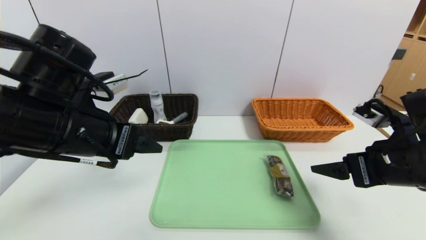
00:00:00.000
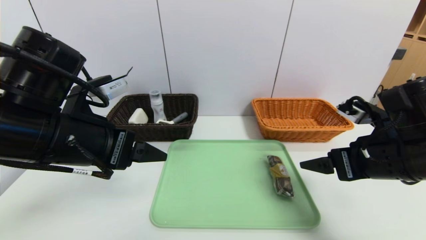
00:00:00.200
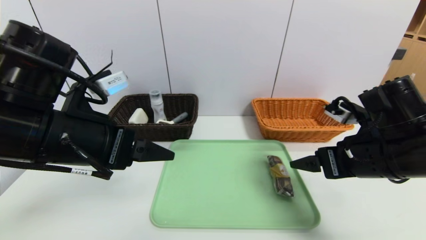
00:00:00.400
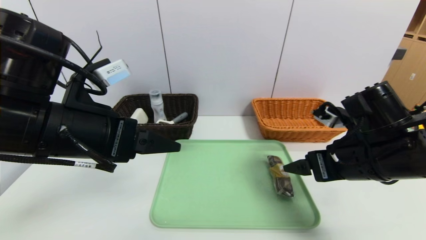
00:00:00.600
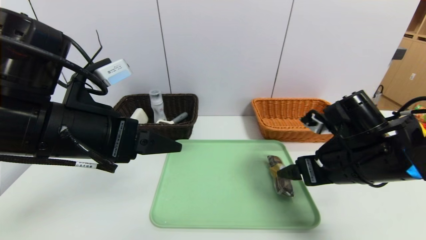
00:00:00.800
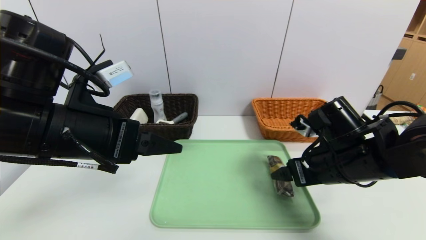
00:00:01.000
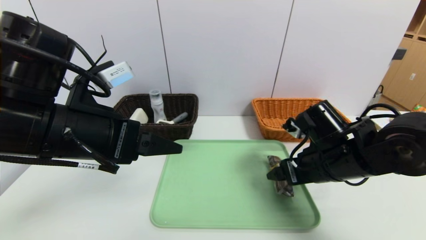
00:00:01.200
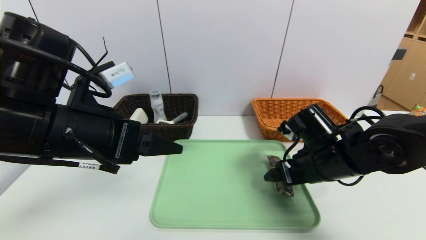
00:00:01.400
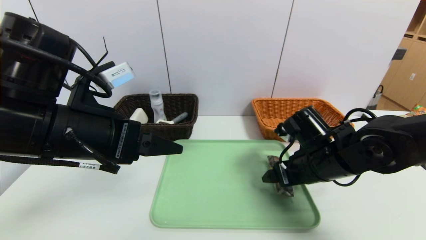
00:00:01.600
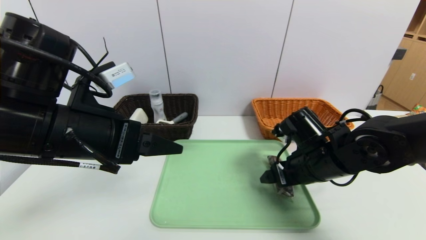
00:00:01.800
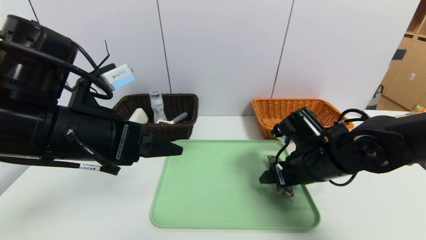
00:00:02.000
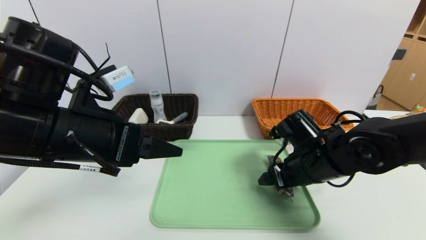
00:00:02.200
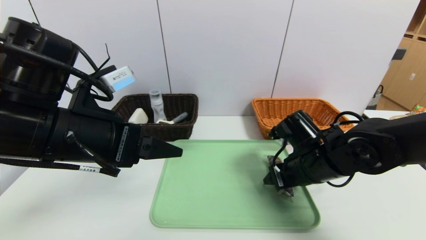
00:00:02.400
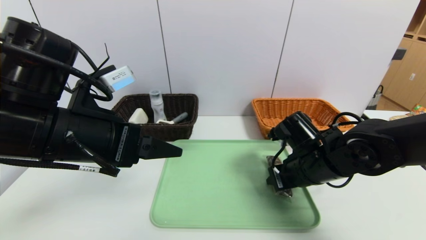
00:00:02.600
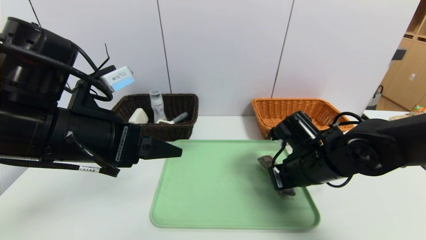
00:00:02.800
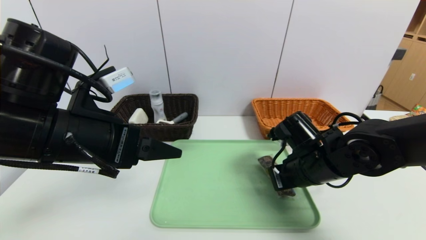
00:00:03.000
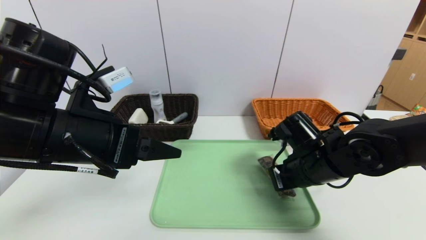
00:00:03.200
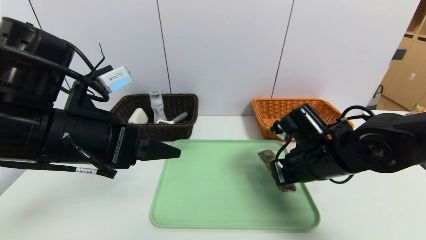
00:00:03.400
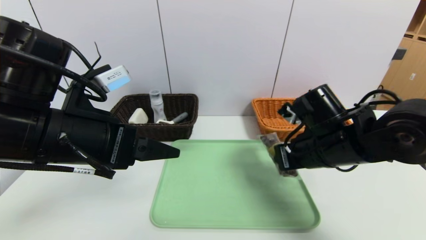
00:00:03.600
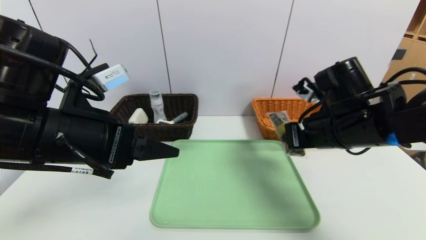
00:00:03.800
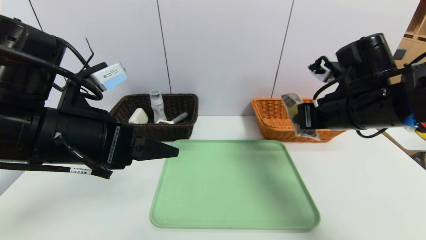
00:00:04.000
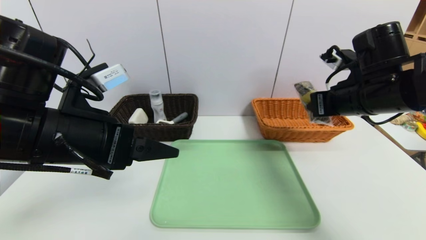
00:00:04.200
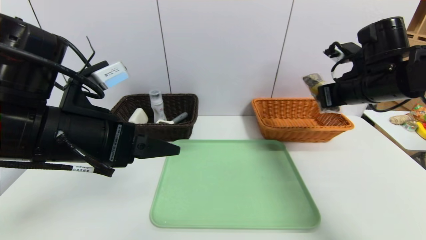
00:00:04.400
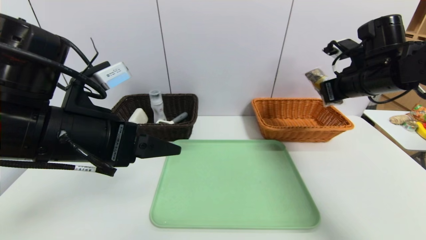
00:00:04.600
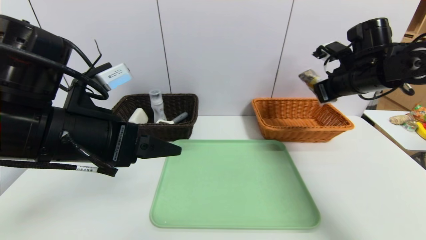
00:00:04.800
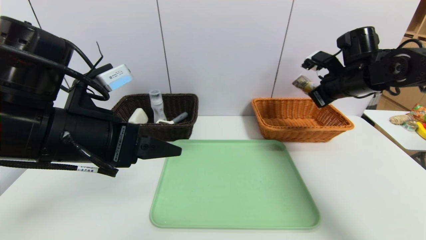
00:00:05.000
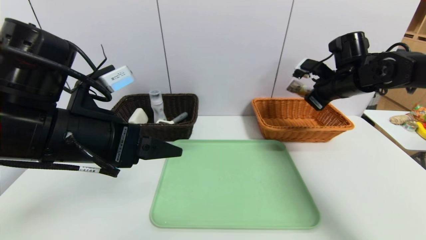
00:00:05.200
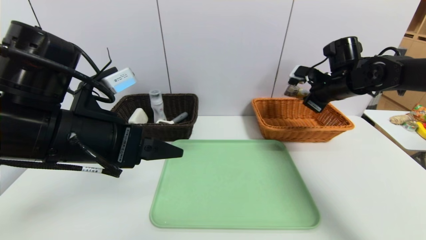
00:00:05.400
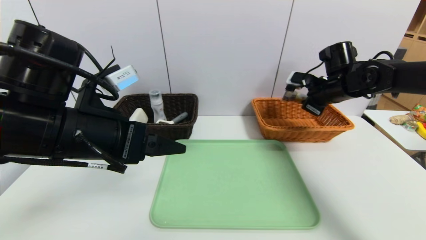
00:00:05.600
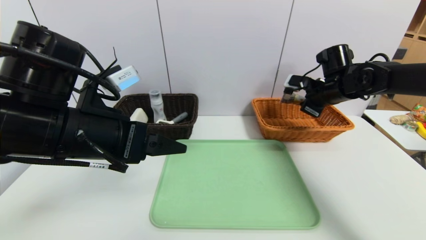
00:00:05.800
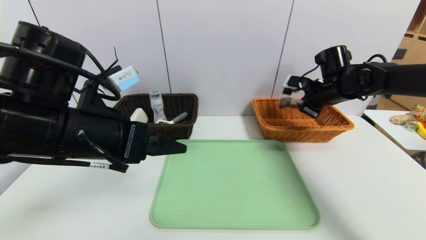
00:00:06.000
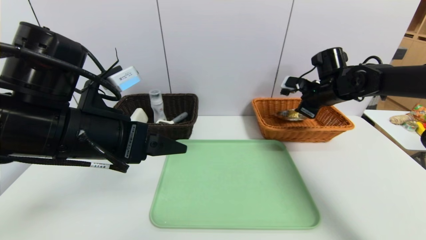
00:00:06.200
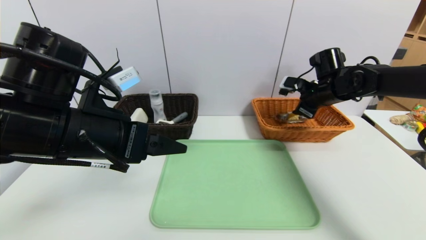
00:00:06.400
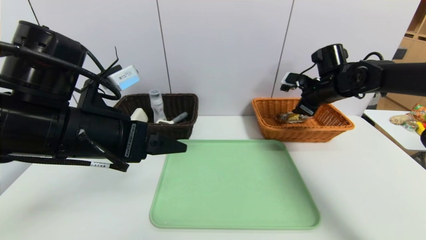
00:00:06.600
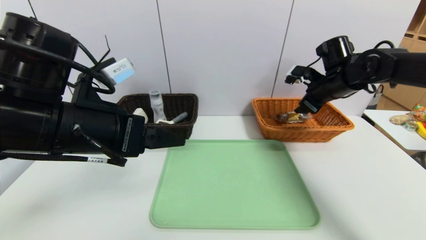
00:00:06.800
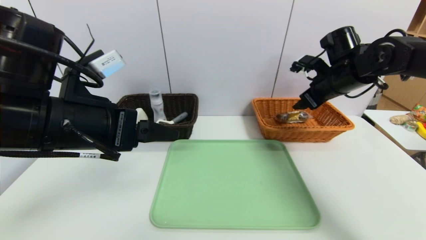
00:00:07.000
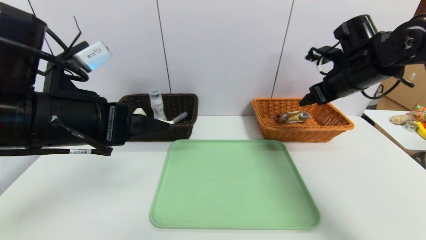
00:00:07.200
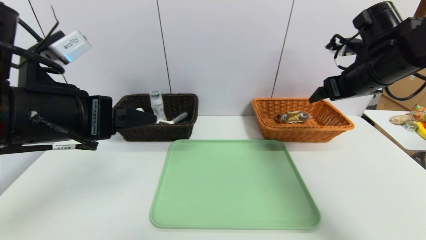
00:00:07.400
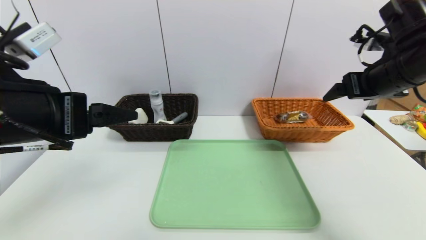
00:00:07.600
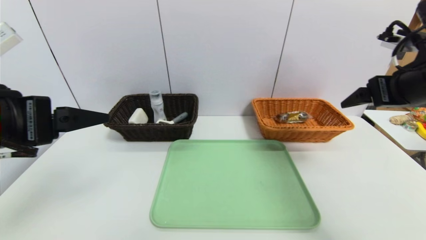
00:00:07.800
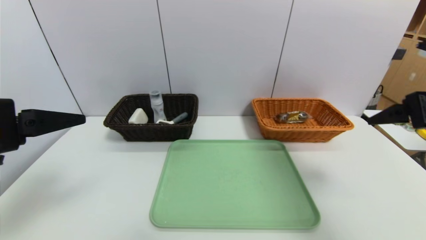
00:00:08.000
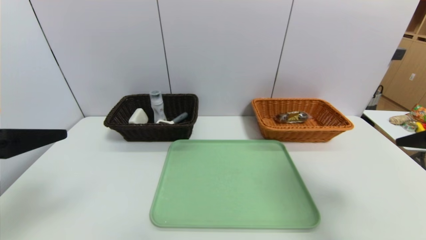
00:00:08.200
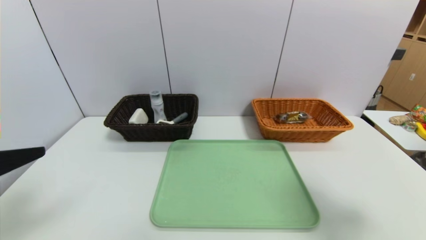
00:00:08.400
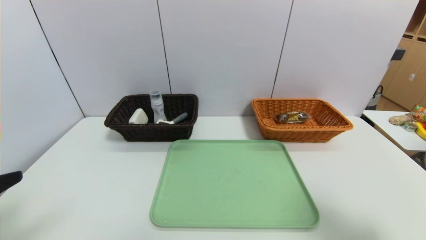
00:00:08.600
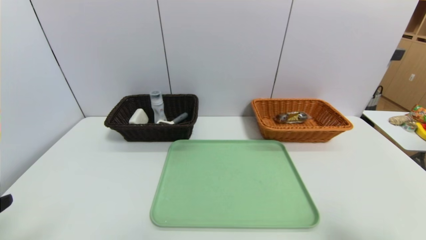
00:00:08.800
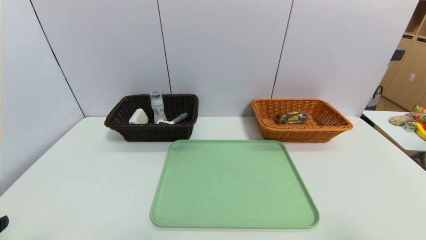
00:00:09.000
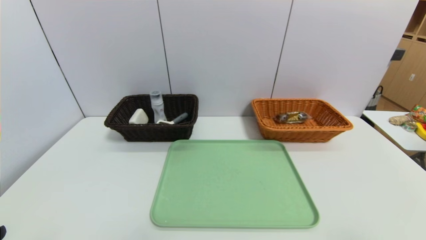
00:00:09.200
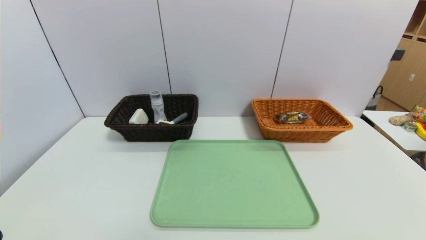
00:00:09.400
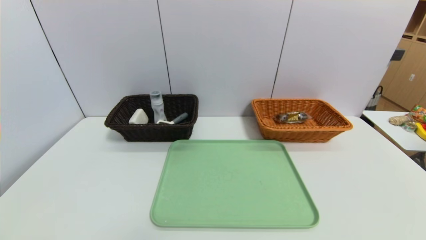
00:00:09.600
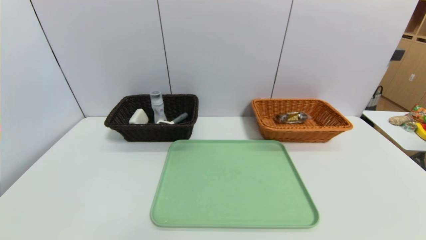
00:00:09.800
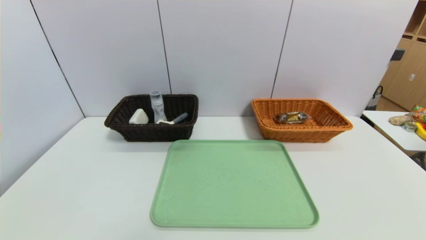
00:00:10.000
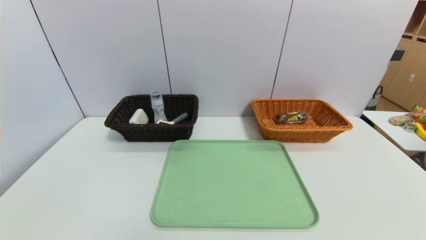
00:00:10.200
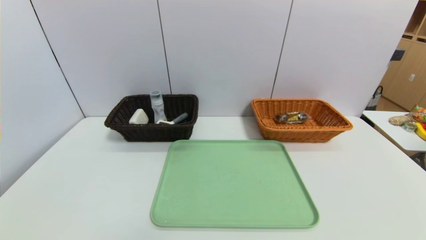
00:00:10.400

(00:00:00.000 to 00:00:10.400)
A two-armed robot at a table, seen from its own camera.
Task of the whole recording: place the food in the right basket with the right gripper, and place the non food items in the left basket with the left gripper.
Step, 00:00:00.000 - 00:00:06.400: Grasp the chocolate and put it in the right basket.
00:00:00.000 - 00:00:01.400: The right gripper heads to the left, forward and downward, covering about 10 cm.
00:00:01.400 - 00:00:03.000: The right gripper closes up.
00:00:03.000 - 00:00:04.400: The right gripper is displaced upward, to the right and forward by approximately 20 cm.
00:00:04.400 - 00:00:06.000: The right gripper travels forward and downward by about 10 cm.
00:00:06.000 - 00:00:07.400: The right gripper moves backward and upward, roughly 15 cm, and opens its fingers.
00:00:07.400 - 00:00:09.000: The right gripper travels backward by approximately 30 cm. The left gripper travels backward, to the left and downward by about 20 cm.

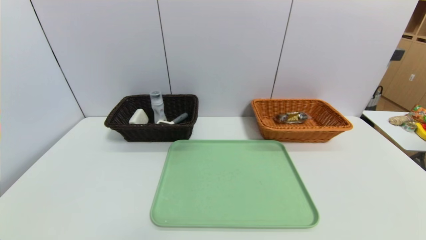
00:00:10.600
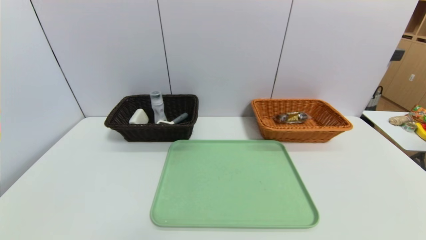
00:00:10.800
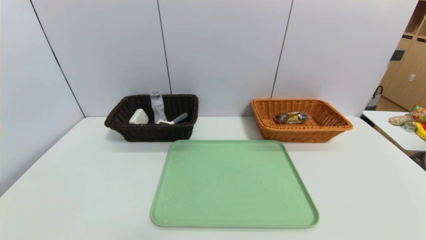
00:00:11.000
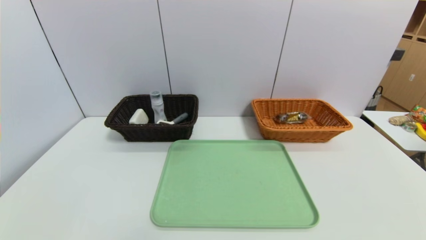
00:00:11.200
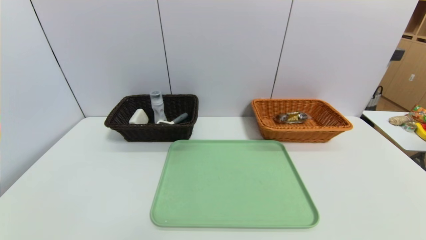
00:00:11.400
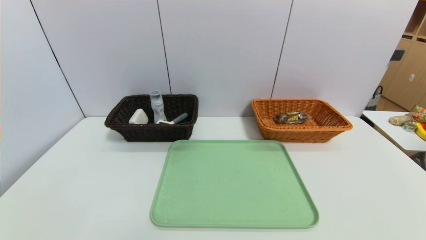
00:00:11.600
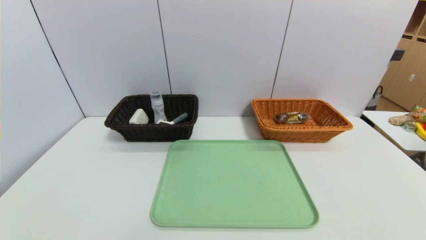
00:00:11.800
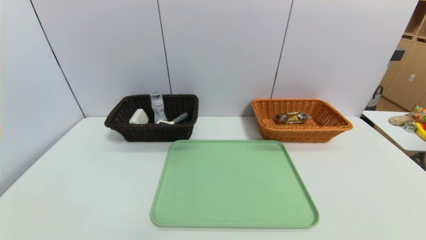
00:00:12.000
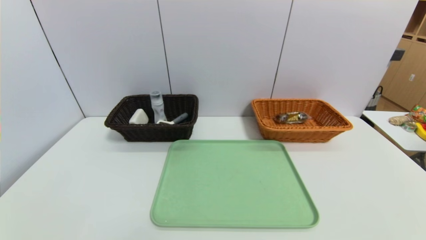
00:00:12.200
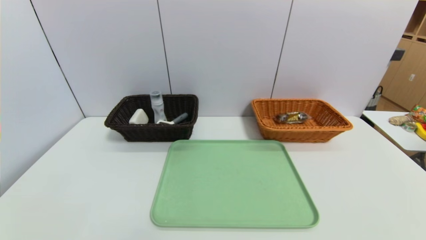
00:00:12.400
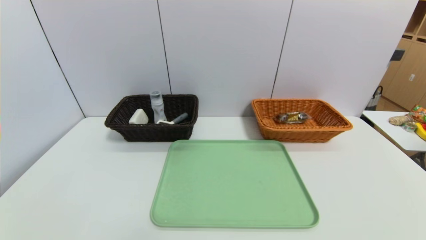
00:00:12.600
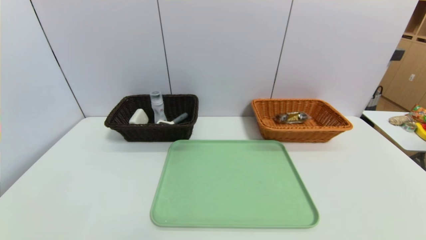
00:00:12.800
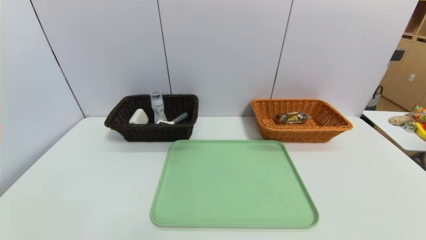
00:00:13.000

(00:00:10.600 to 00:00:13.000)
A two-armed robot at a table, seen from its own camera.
Task of the whole recording: place the food in the right basket with the right gripper, and place the non food items in the left basket with the left gripper.
00:00:11.800 - 00:00:13.000: Both grippers stay put.

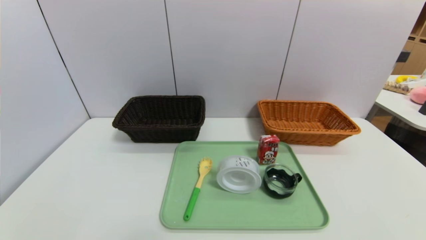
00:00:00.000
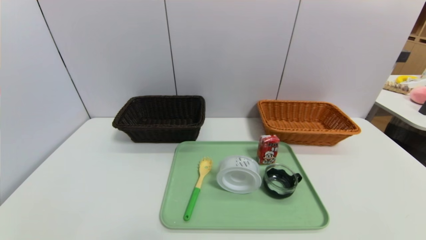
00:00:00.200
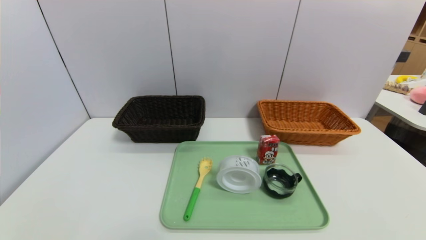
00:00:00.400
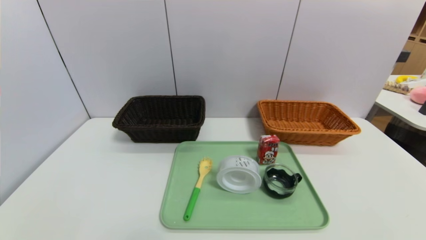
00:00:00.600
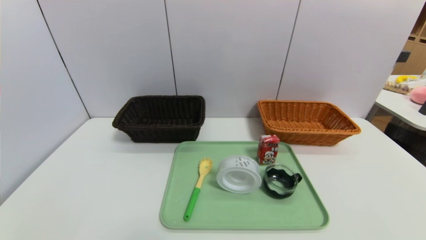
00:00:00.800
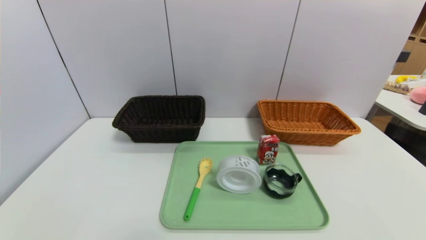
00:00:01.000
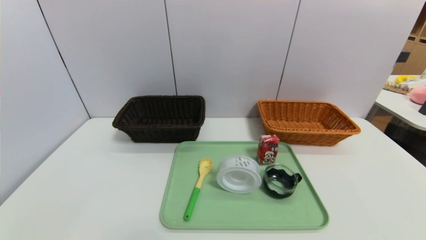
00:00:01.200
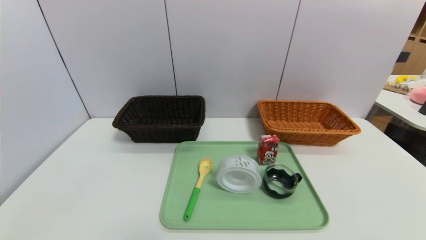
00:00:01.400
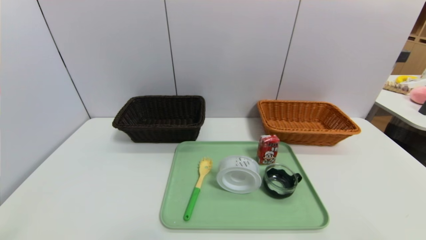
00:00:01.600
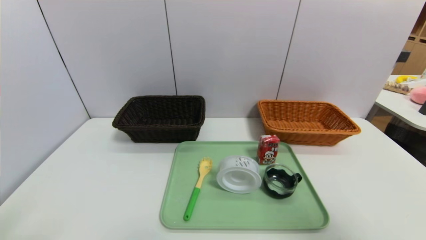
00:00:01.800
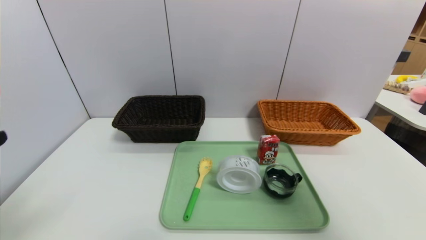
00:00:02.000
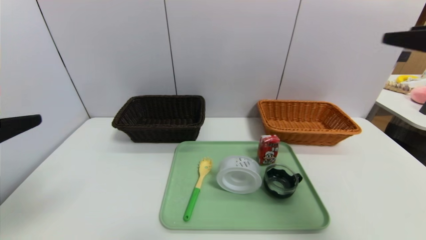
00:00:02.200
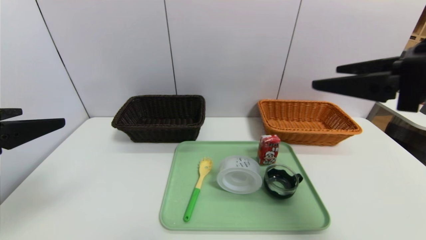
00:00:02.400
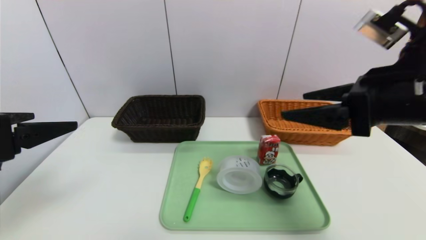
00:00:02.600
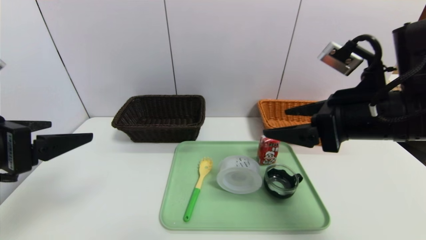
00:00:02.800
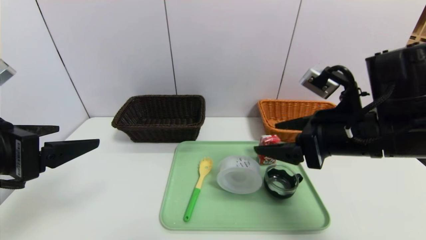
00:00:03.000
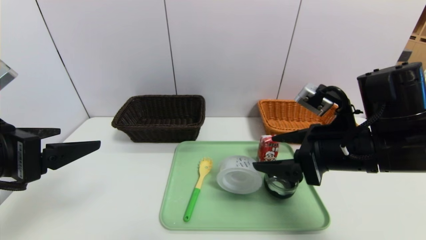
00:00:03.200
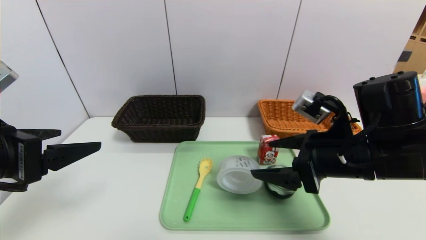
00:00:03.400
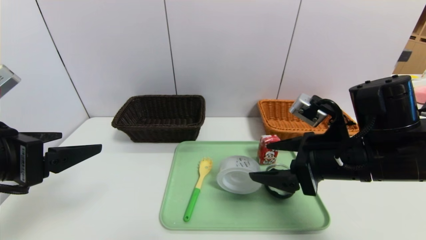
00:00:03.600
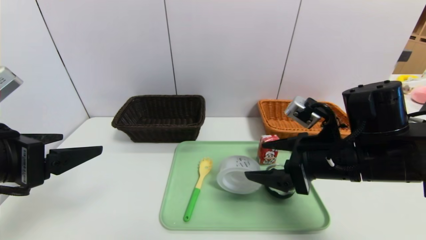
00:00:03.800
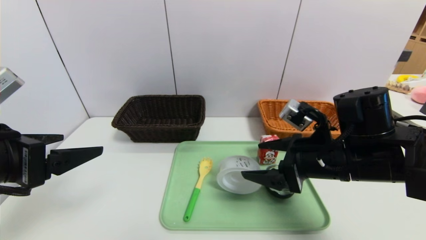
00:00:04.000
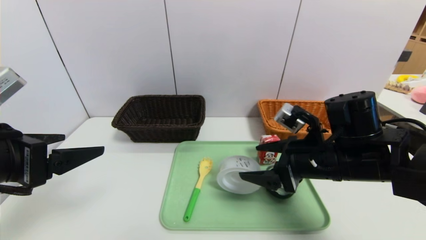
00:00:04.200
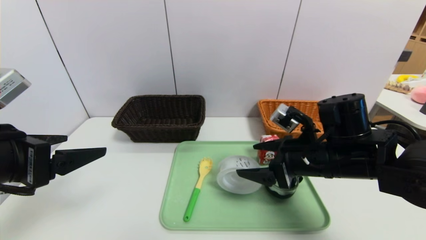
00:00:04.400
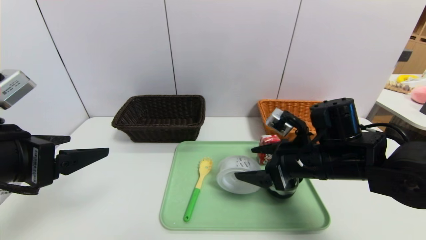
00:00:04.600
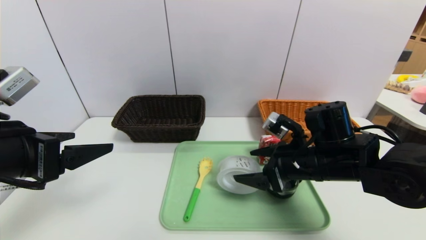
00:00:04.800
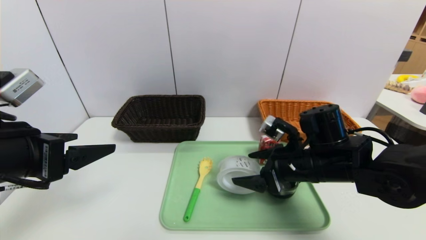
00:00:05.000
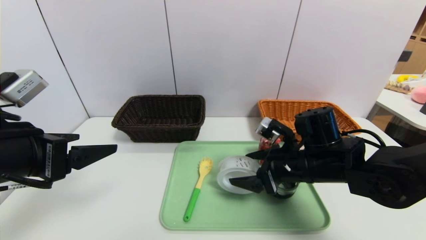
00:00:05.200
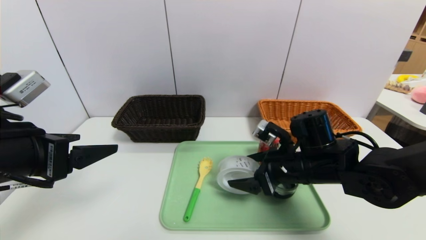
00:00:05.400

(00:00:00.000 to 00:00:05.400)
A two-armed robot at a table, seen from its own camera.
Task of the whole recording: place the food in the right basket with the right gripper, and place the non food items in the left basket with the left gripper.
00:00:01.400 - 00:00:02.800: The left gripper shifts approximately 20 cm forward and upward; the right gripper goes approximately 30 cm forward, to the left and upward.
00:00:02.800 - 00:00:04.000: The right gripper heads downward, covering roughly 10 cm.
00:00:04.000 - 00:00:05.400: The right gripper moves downward, some 5 cm.
